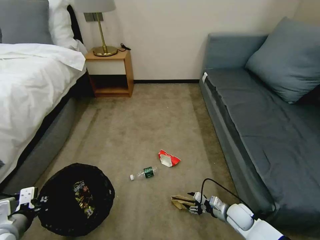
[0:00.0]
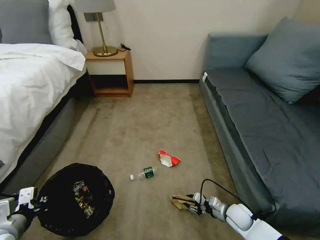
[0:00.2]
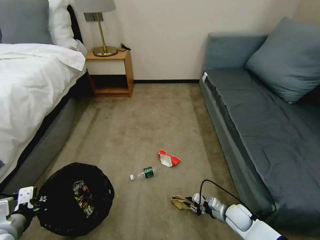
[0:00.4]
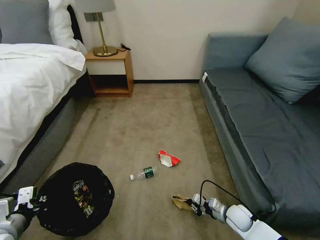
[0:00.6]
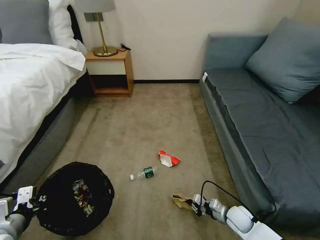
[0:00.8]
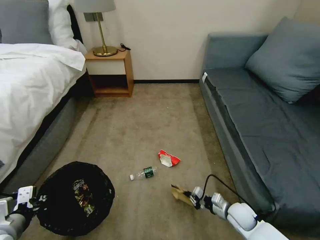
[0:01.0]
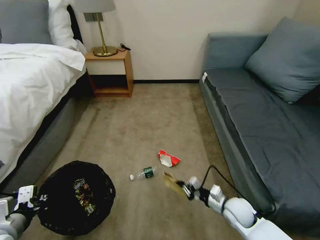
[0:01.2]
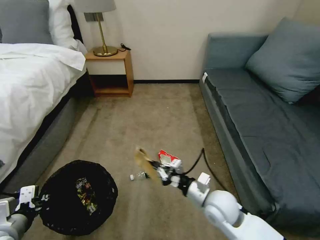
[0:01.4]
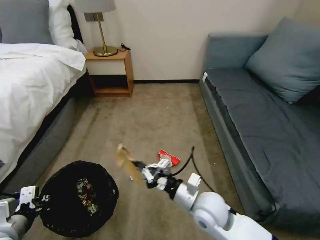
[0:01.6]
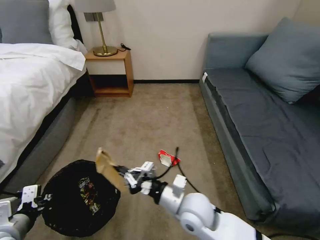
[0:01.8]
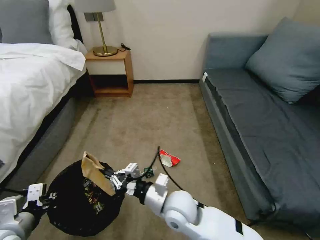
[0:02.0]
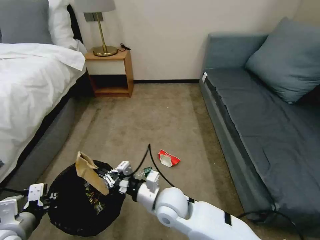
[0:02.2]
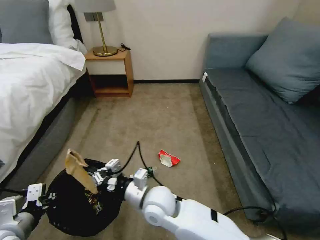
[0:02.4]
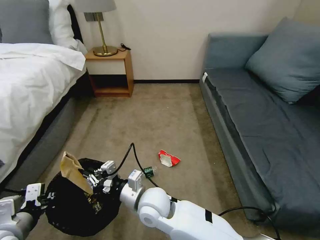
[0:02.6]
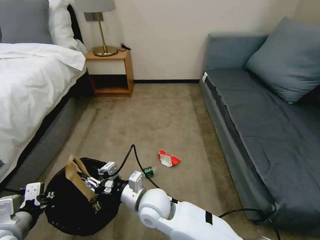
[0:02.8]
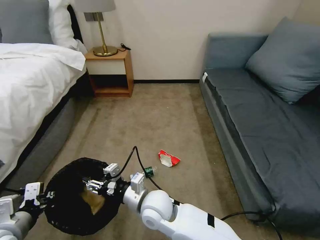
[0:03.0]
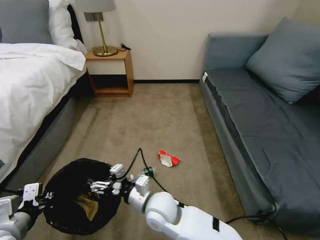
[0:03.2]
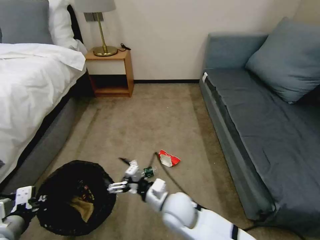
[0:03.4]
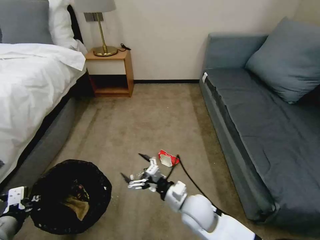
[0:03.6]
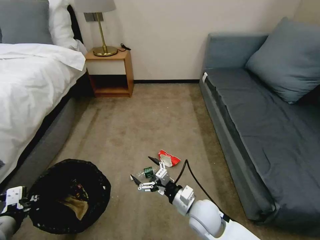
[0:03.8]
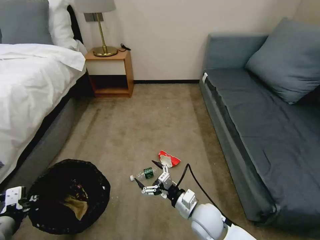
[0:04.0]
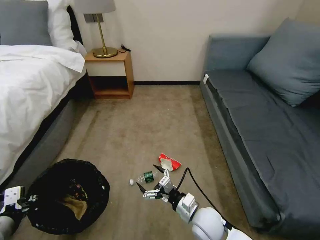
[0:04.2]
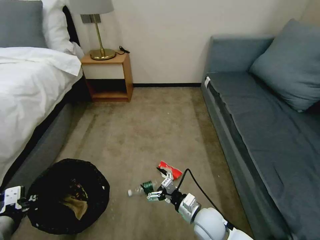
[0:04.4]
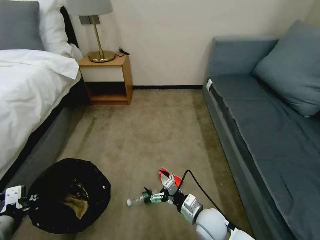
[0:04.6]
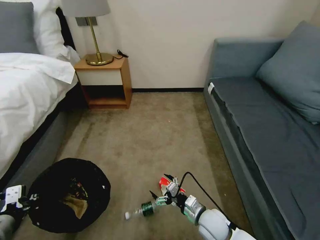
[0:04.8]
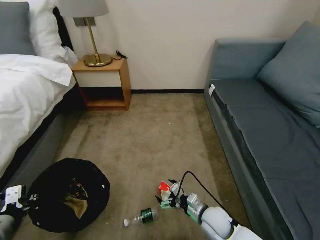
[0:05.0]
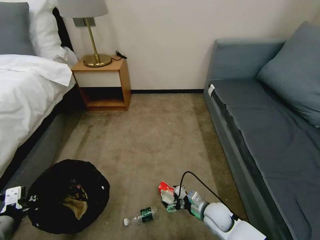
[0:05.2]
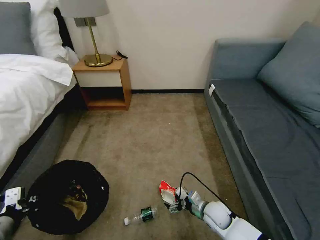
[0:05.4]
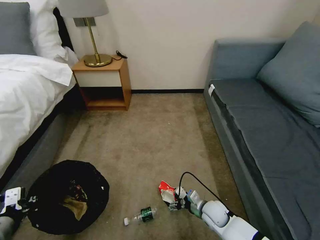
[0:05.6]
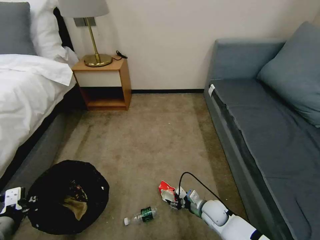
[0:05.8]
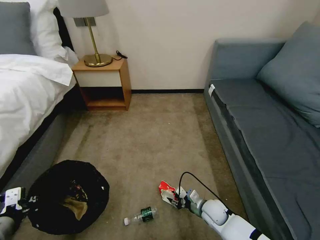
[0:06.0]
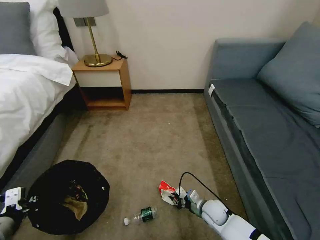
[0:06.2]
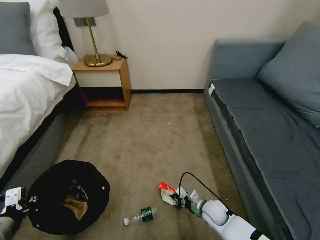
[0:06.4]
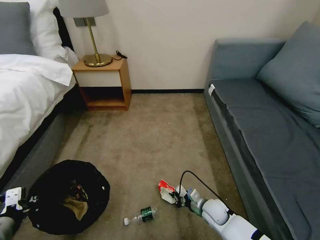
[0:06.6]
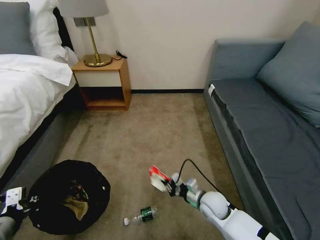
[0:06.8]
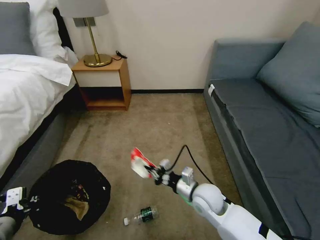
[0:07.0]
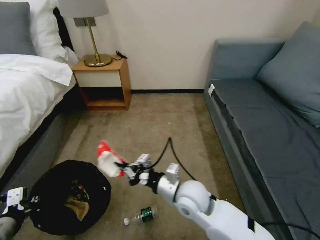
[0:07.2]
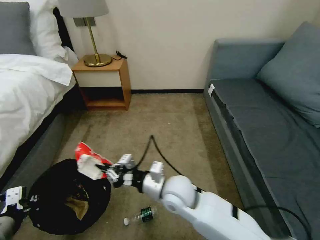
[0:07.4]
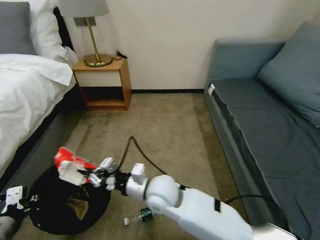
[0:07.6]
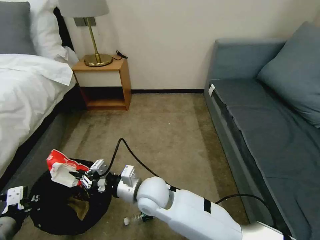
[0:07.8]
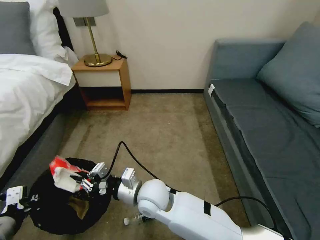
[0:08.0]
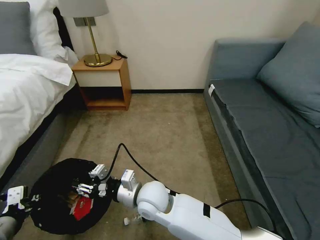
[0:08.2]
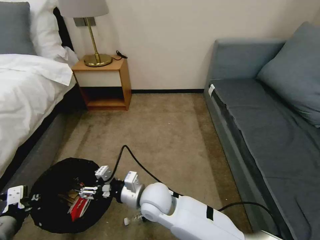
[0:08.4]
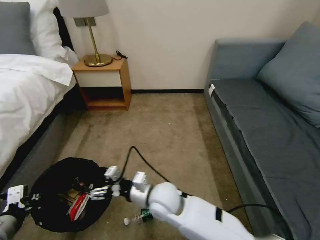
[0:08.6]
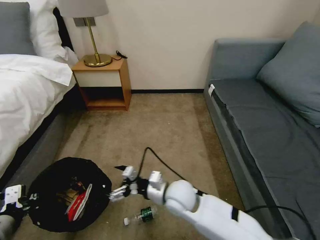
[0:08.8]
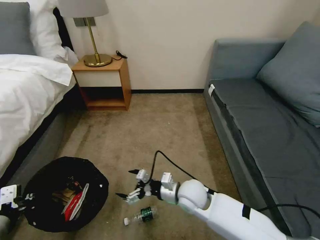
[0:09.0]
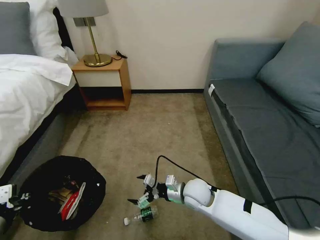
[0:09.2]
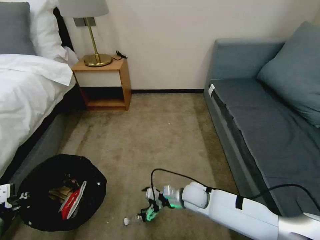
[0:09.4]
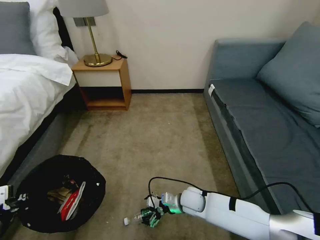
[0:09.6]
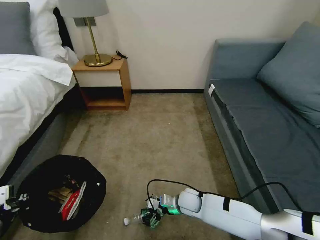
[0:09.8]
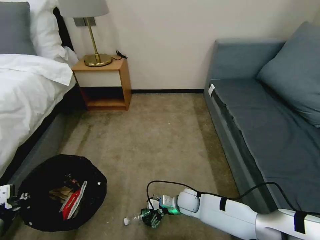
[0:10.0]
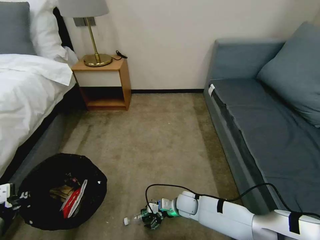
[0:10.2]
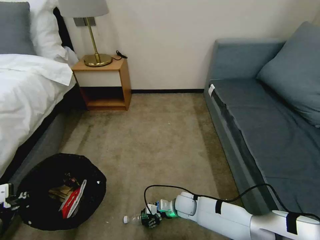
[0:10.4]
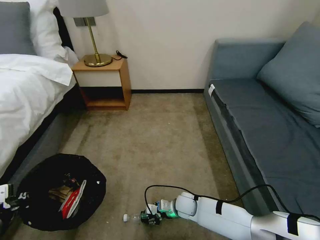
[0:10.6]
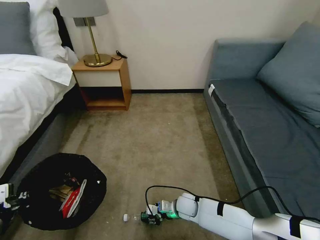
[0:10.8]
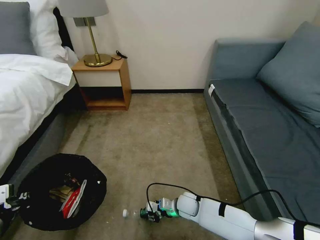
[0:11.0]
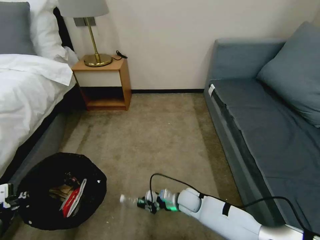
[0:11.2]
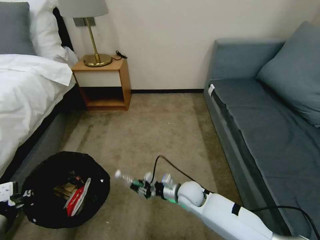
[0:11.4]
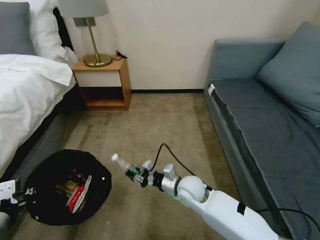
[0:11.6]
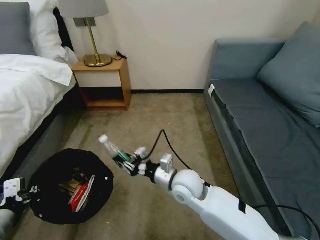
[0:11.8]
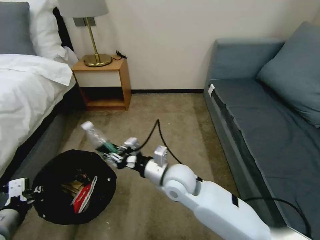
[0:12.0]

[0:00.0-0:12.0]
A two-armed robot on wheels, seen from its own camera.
Task of the whole recording: Pick up the trash bin, then pick up the garbage on the floor and place it into the trash bin.
0.0 to 1.6 s: The right gripper heads upward and to the left, covering approximately 25 cm, and closes up.
1.6 to 3.0 s: The right gripper shifts roughly 15 cm to the left, and opens its fingers.
3.0 to 4.4 s: The right gripper travels to the right and downward by roughly 20 cm, and opens its fingers.
4.4 to 6.0 s: The right gripper is displaced downward, to the right and forward by roughly 15 cm, and closes.
6.0 to 7.6 s: The right gripper goes some 30 cm upward and to the left, and closes.
7.6 to 9.0 s: The right gripper heads to the right and downward, covering some 10 cm, and opens up.
9.0 to 10.4 s: The right gripper goes roughly 15 cm downward.
10.4 to 12.0 s: The right gripper moves upward, some 25 cm, and closes up.

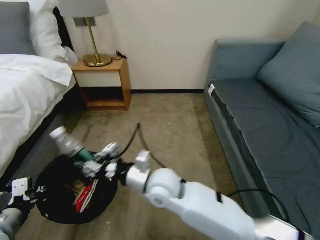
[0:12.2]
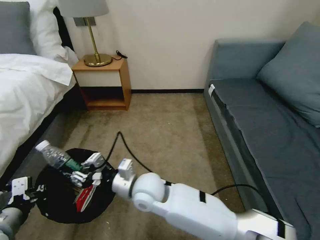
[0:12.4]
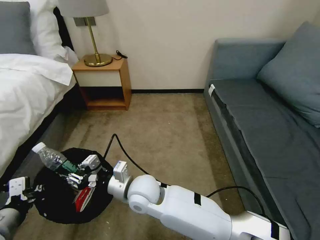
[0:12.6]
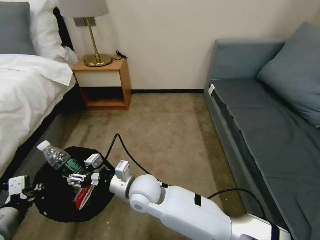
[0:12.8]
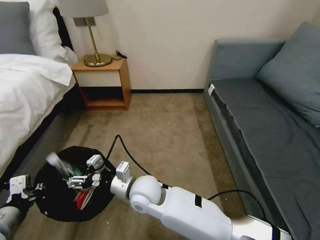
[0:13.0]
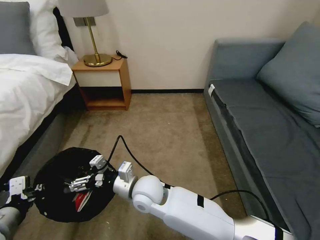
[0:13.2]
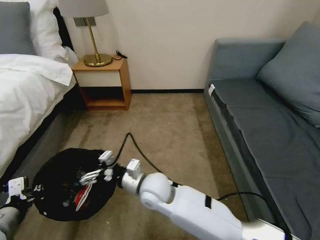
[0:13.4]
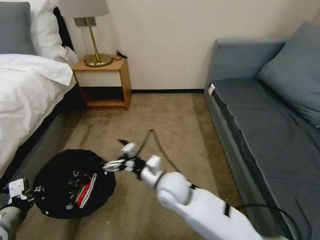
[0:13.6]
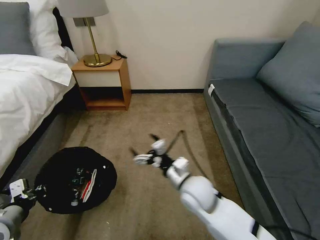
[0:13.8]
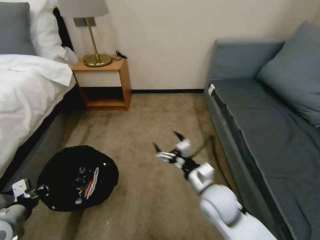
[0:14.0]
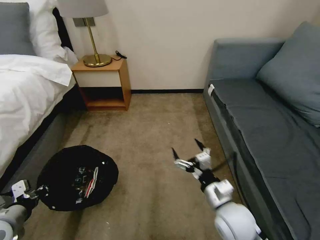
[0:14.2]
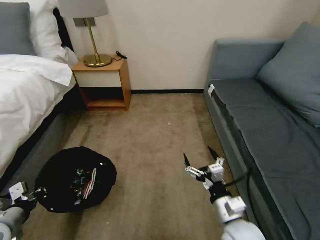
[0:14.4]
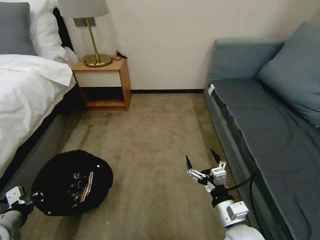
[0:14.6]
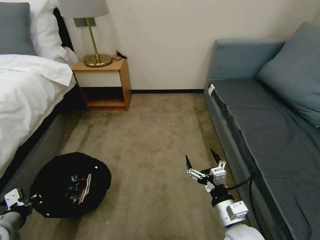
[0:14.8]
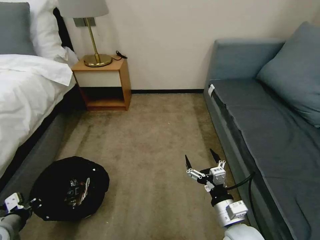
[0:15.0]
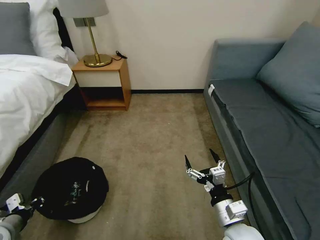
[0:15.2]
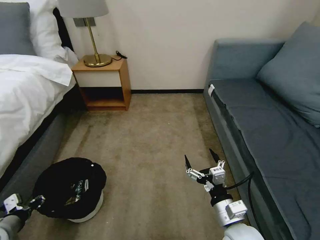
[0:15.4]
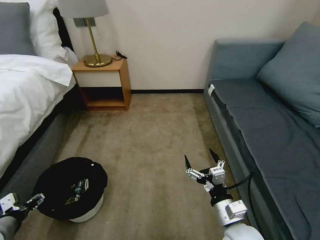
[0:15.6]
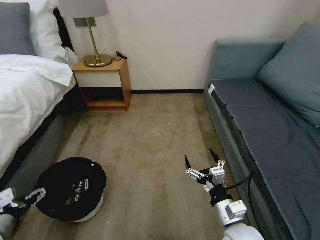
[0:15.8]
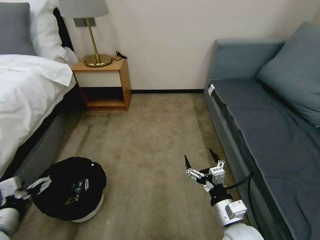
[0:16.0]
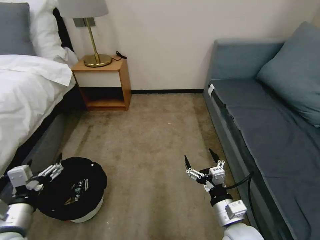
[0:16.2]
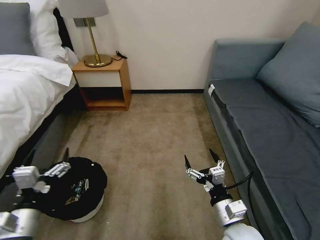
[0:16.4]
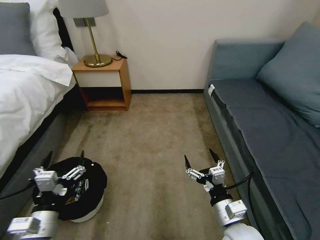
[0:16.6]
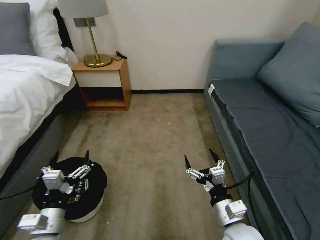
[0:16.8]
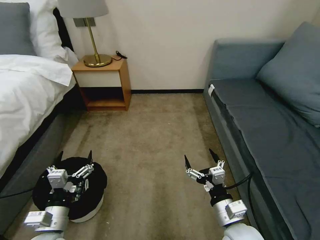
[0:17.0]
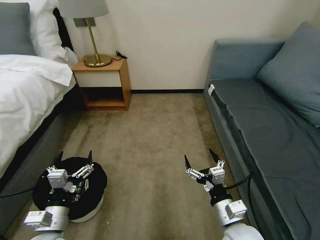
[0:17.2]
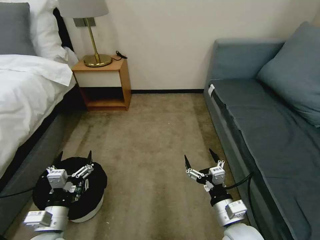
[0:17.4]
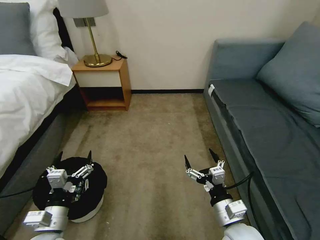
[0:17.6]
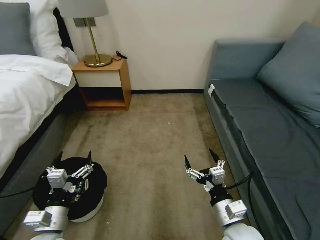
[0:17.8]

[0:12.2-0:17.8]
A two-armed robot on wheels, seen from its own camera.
Task of the whole recording: Pick up the trash bin, then pick up the garbage on the floor and place it into the trash bin.
12.2 to 13.6 s: The right gripper shifts by approximately 5 cm, and opens its fingers.
13.6 to 15.0 s: The left gripper shifts some 5 cm downward; the right gripper moves to the right and backward, about 20 cm.
15.0 to 16.4 s: The left gripper heads to the right and upward, covering roughly 15 cm, and opens its fingers.
16.4 to 17.8 s: The left gripper travels downward by approximately 5 cm.

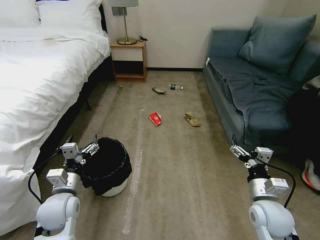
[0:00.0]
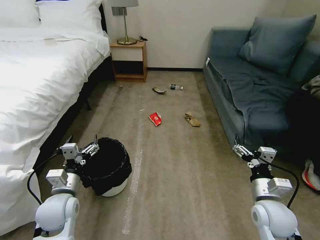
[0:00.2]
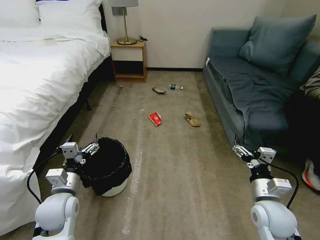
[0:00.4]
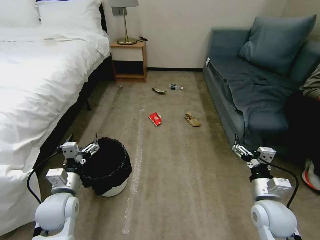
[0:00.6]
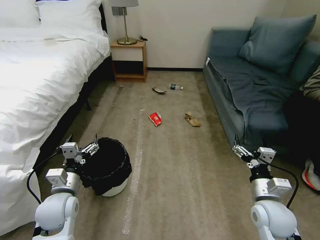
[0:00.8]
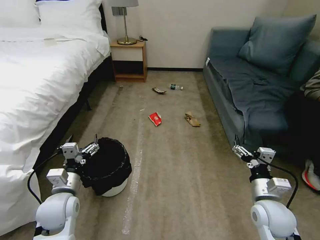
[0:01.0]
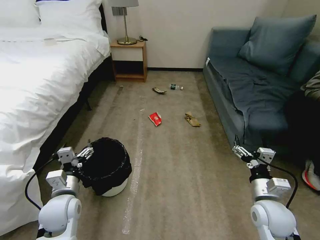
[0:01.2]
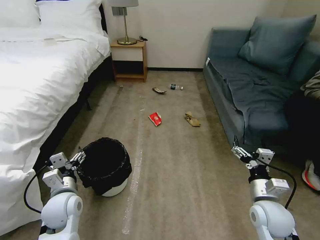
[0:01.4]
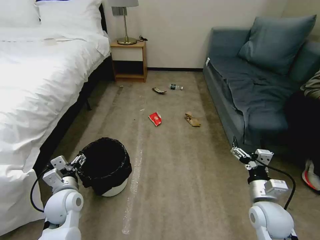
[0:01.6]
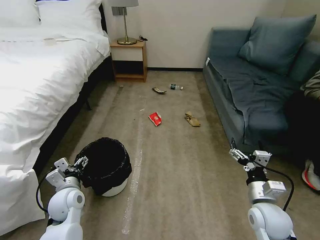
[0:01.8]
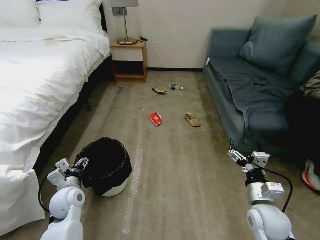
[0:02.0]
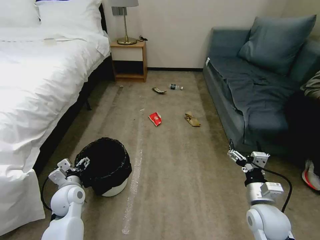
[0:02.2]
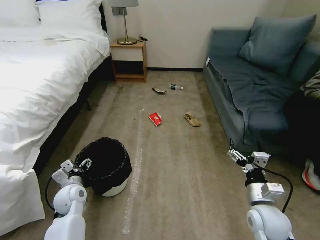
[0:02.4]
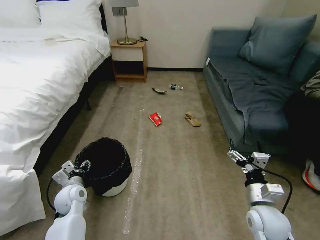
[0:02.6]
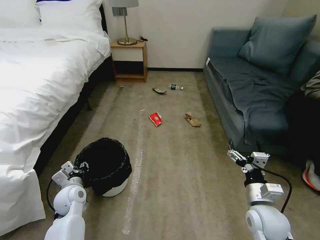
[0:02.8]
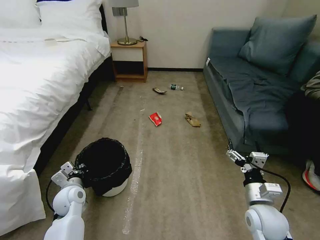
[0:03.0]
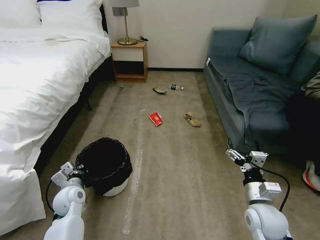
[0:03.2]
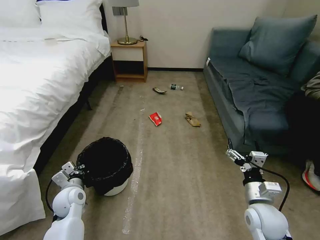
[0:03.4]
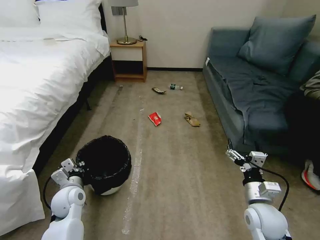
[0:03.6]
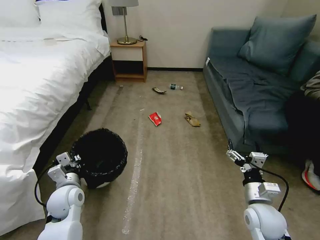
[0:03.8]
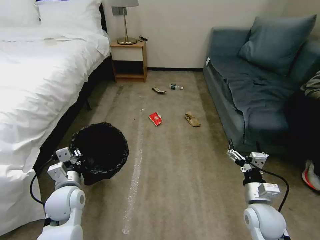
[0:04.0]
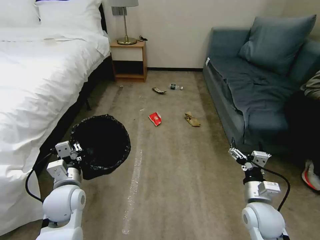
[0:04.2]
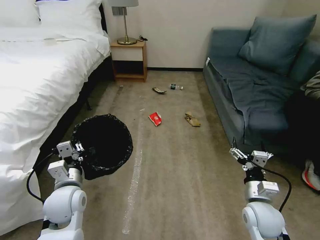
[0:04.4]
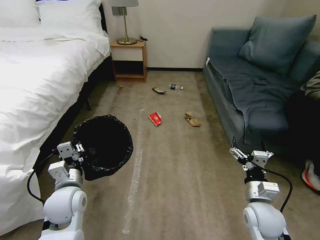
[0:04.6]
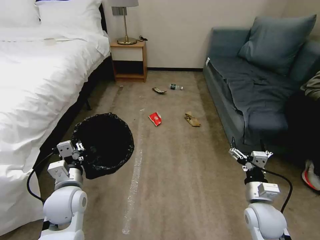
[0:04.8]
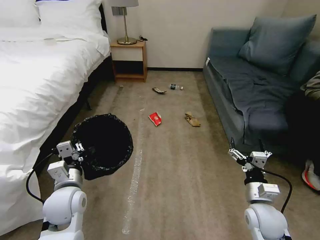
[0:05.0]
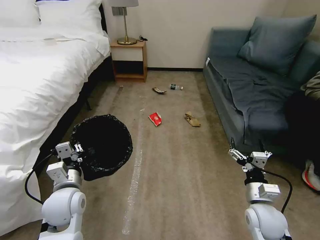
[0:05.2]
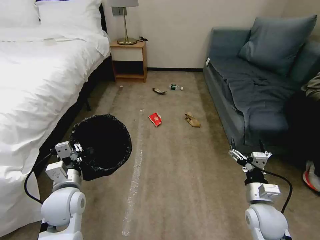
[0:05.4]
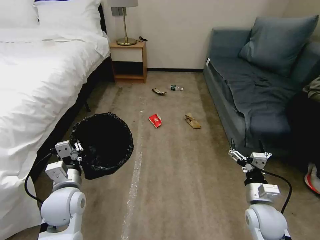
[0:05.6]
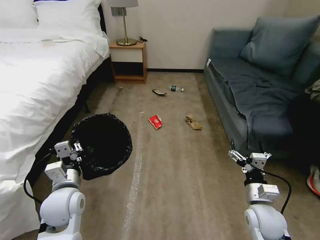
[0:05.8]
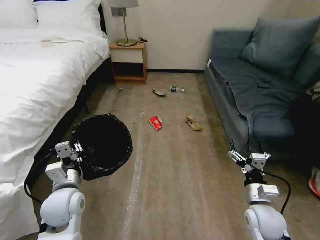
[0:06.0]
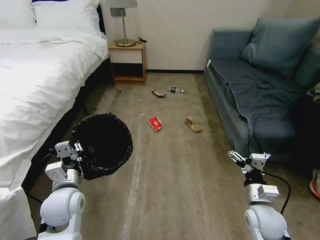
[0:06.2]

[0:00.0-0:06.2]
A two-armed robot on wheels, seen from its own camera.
Task of the whole recording: Pick up the trash bin, then pick up the garbage on the floor and place it into the trash bin.
1.6 to 3.2 s: The left gripper moves downward, approximately 5 cm, and closes its fingers.
3.2 to 4.6 s: The left gripper heads upward and to the right, covering approximately 10 cm.
4.6 to 6.2 s: Both grippers stay about where they are.
